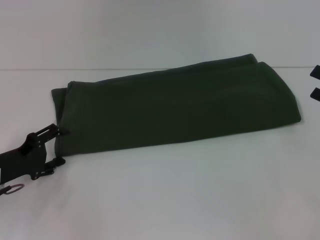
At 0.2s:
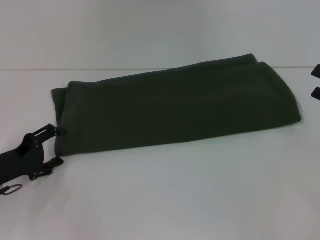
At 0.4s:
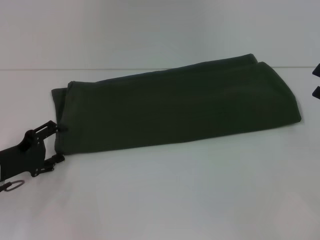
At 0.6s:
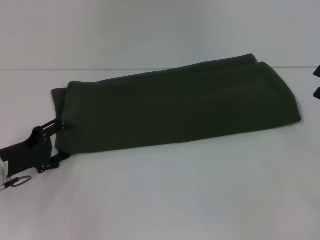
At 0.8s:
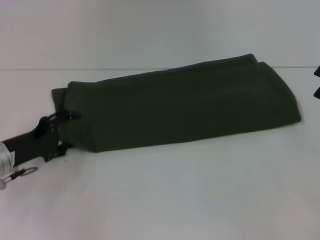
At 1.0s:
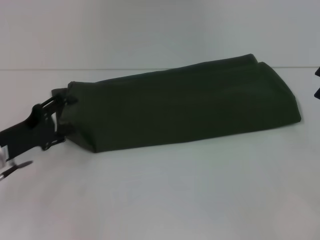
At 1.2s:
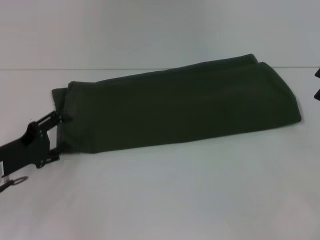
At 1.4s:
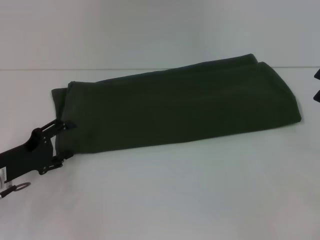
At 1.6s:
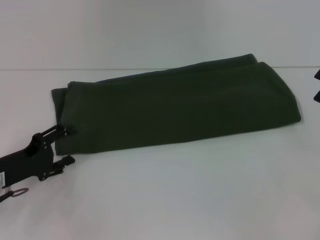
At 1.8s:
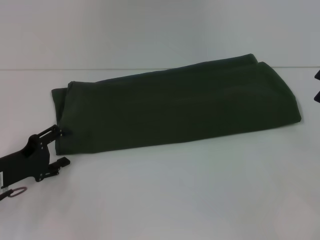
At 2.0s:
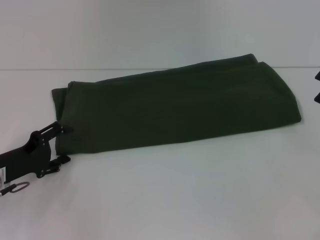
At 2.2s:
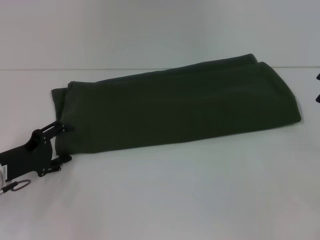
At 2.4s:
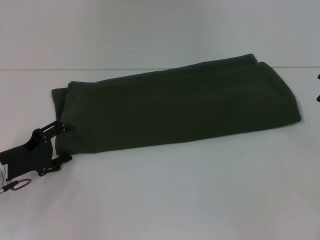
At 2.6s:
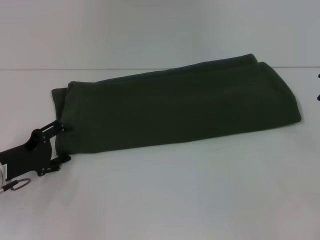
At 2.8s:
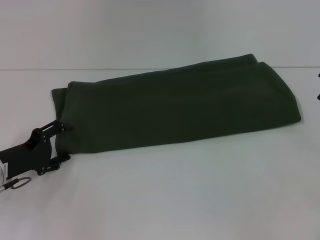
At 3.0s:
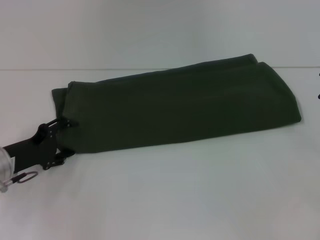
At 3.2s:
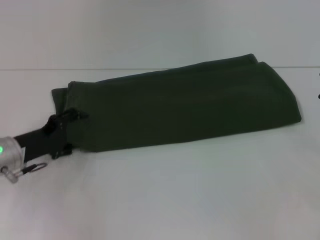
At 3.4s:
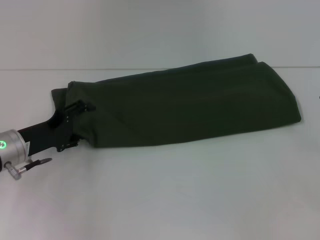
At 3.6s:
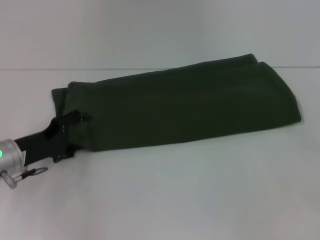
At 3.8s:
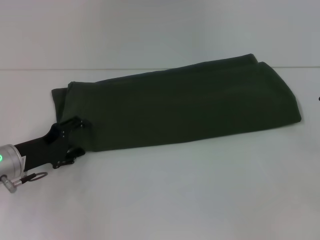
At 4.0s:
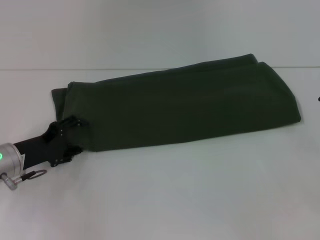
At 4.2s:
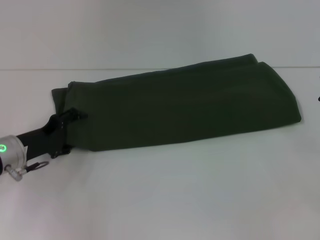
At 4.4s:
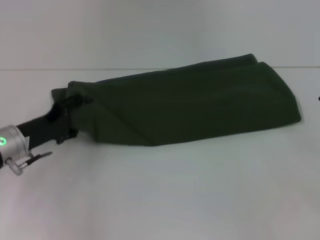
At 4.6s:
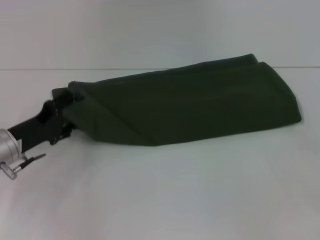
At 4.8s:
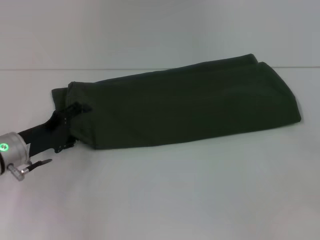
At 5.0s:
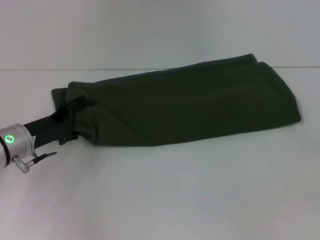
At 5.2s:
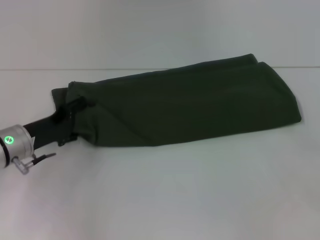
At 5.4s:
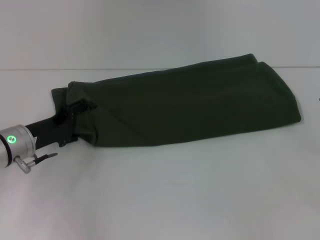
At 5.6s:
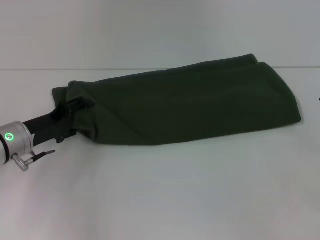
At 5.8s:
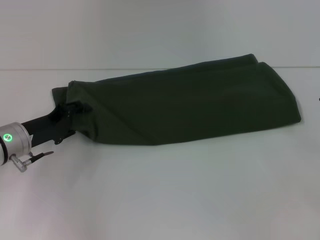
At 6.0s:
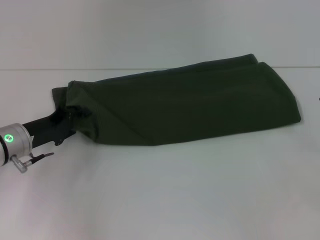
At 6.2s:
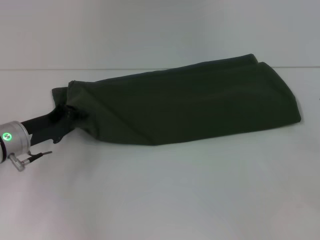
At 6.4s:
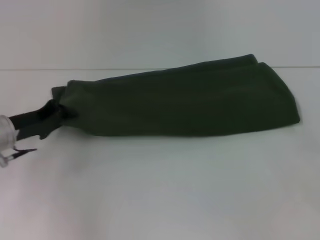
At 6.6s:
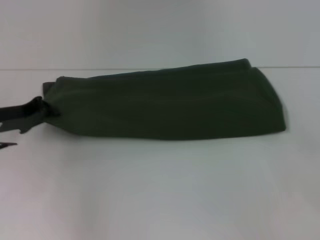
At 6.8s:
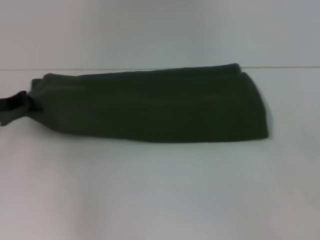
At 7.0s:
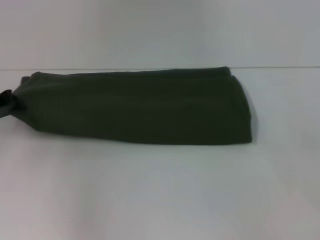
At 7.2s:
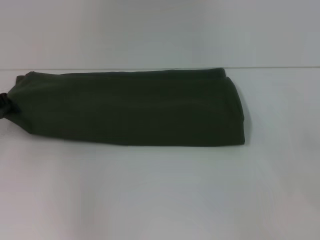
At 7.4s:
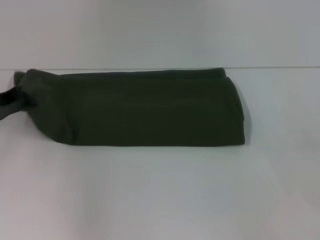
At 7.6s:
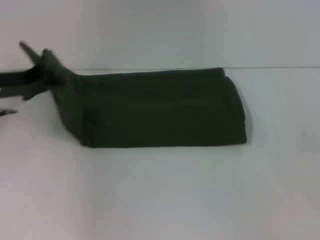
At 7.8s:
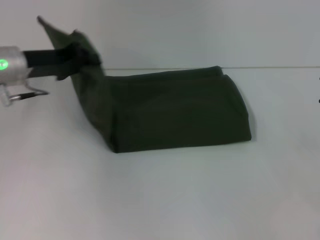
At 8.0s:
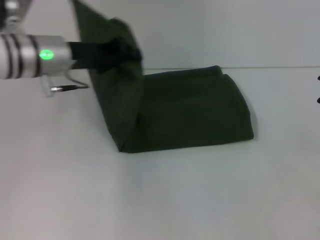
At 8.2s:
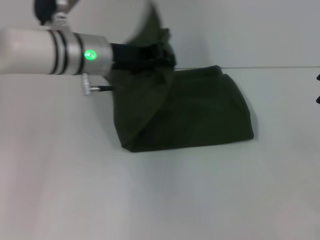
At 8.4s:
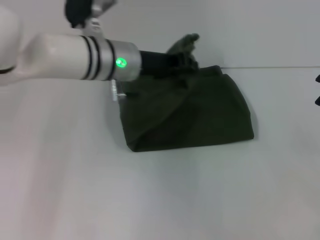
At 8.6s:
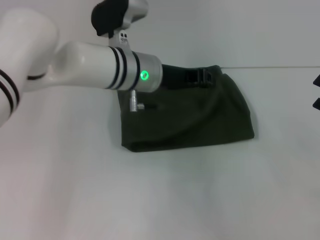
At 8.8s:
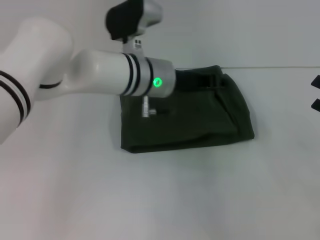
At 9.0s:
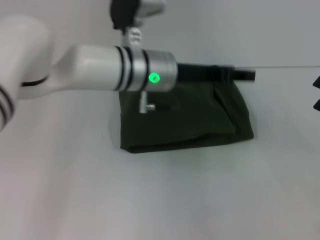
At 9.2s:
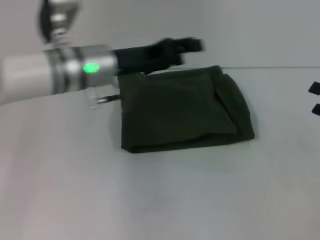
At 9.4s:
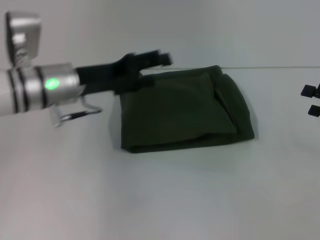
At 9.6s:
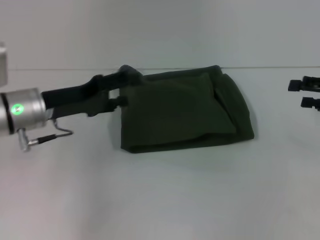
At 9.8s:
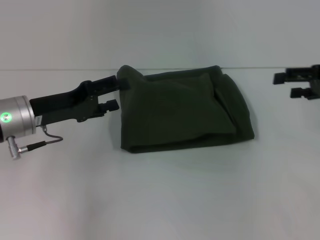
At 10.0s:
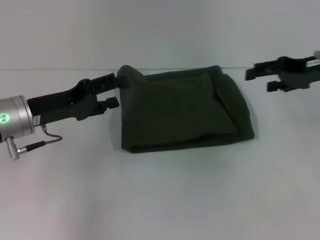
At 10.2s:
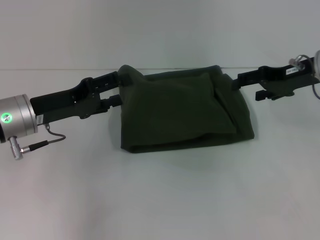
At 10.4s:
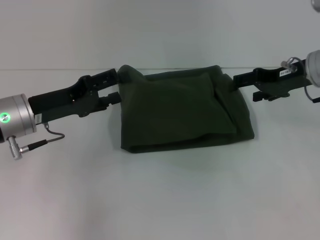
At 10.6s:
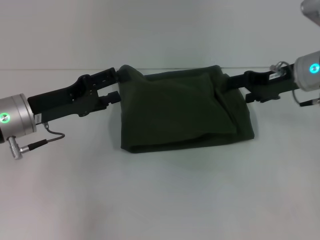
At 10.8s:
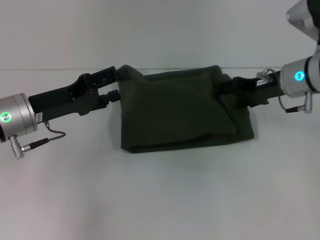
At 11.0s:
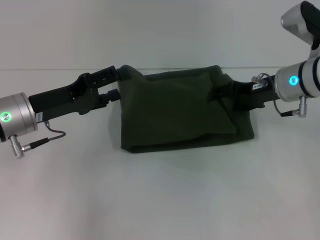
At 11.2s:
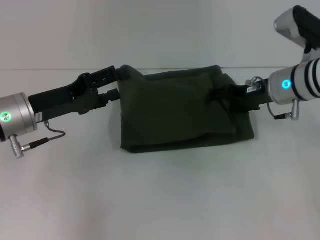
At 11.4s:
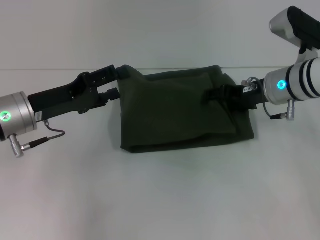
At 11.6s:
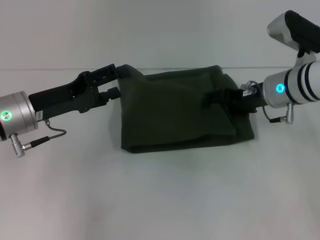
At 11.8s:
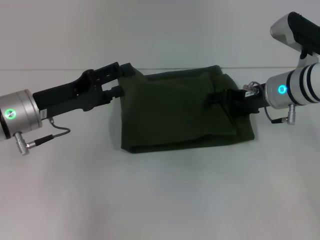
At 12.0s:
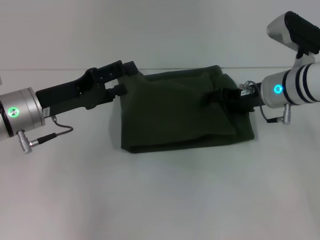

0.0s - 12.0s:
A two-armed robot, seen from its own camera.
Step, 0.0s - 9.0s: Fold the clothes with your left hand.
0.0s - 4.4s: The grippers move only a little.
4.4s - 6.0s: The grippers stay close to where they were, moving slightly.
6.0s - 7.6s: The left gripper shifts some 10 cm upward, and closes up.
7.6s - 9.0s: The left gripper goes roughly 25 cm to the right.
9.0s - 10.4s: The right gripper shifts roughly 20 cm forward, to the left and upward, while the left gripper is displaced to the left by approximately 20 cm, and opens.
10.4s - 12.0s: The right gripper travels to the left by some 5 cm.

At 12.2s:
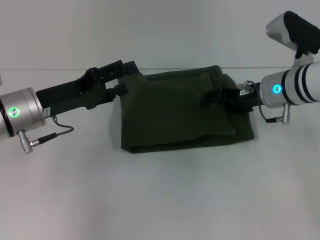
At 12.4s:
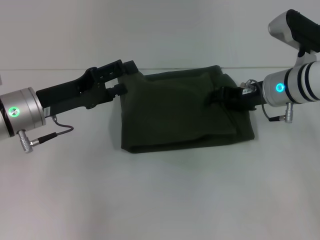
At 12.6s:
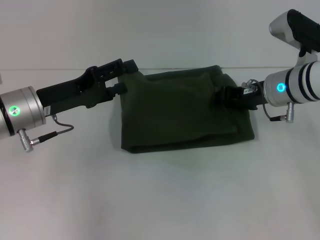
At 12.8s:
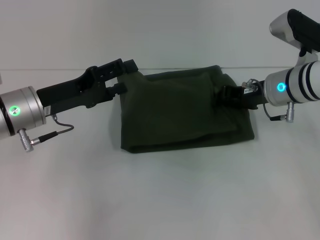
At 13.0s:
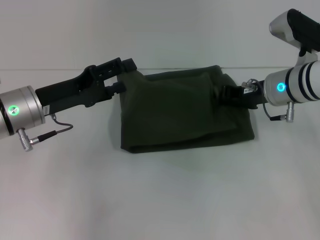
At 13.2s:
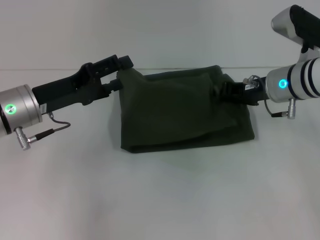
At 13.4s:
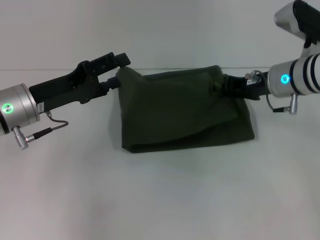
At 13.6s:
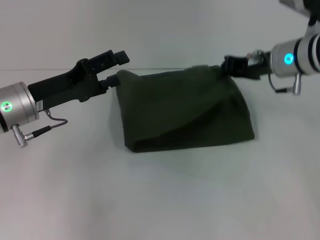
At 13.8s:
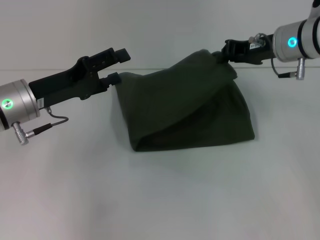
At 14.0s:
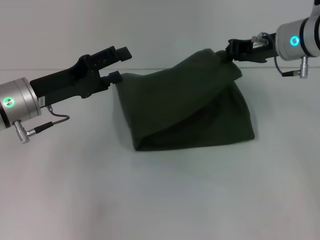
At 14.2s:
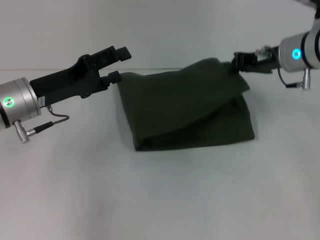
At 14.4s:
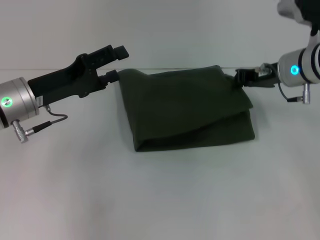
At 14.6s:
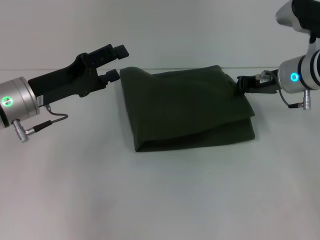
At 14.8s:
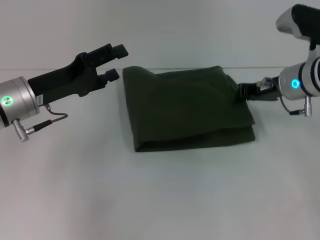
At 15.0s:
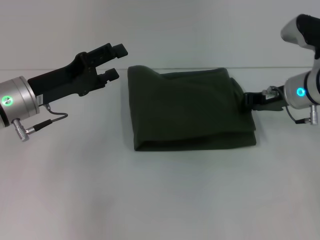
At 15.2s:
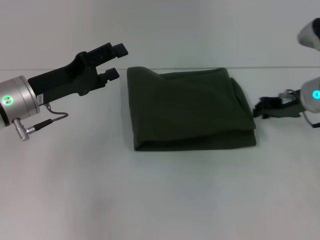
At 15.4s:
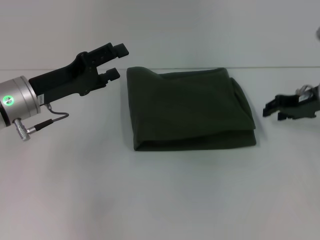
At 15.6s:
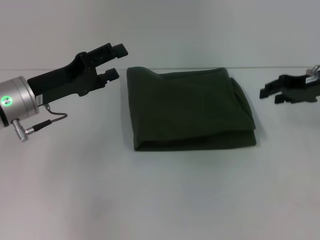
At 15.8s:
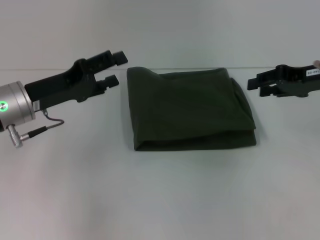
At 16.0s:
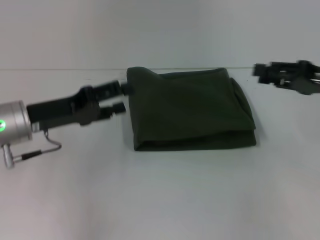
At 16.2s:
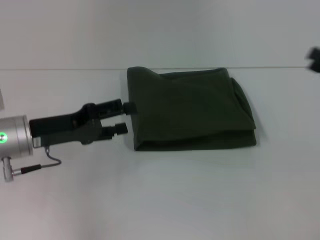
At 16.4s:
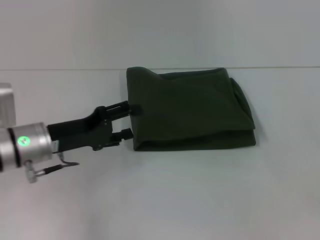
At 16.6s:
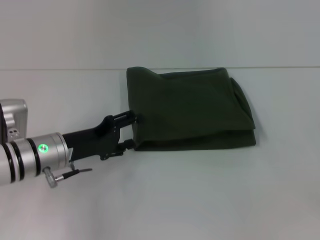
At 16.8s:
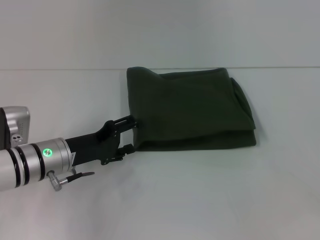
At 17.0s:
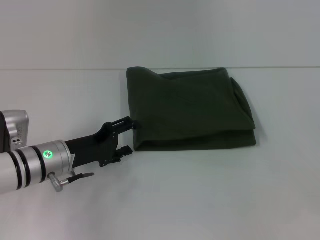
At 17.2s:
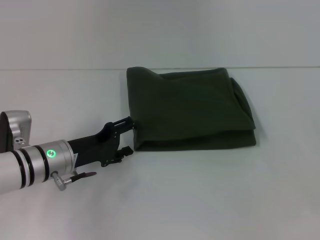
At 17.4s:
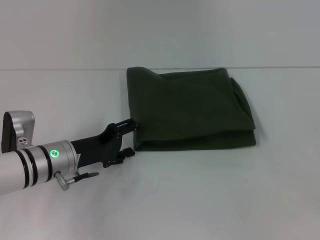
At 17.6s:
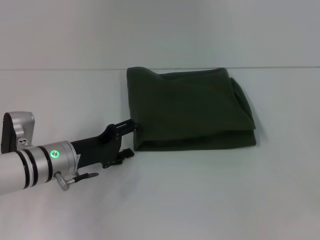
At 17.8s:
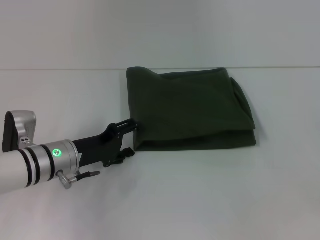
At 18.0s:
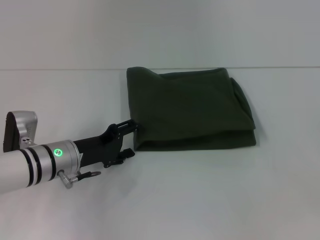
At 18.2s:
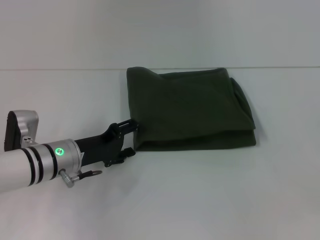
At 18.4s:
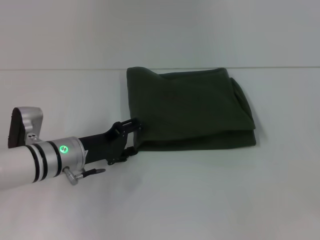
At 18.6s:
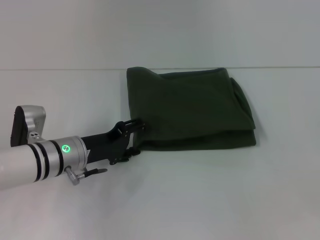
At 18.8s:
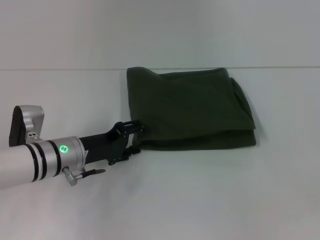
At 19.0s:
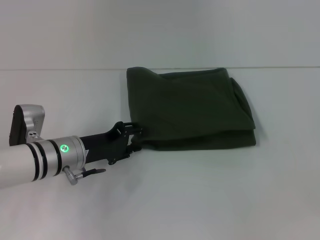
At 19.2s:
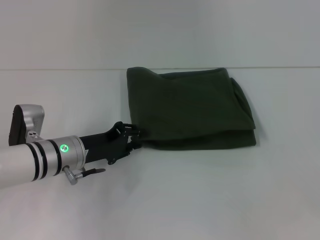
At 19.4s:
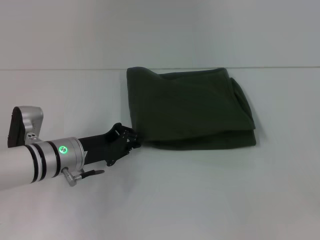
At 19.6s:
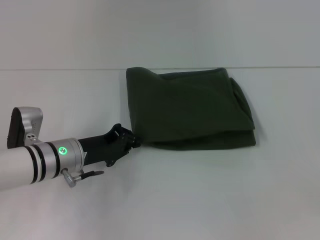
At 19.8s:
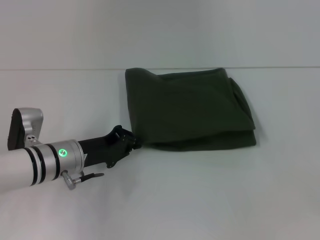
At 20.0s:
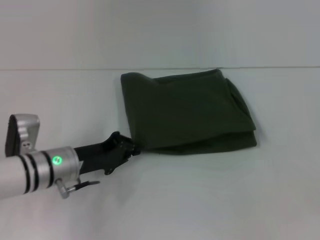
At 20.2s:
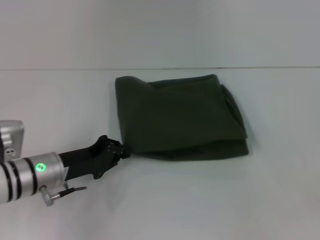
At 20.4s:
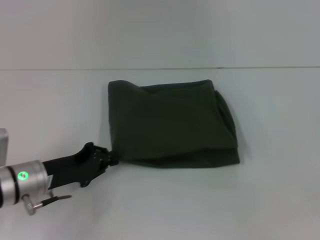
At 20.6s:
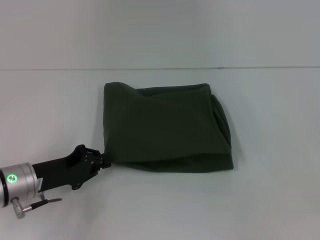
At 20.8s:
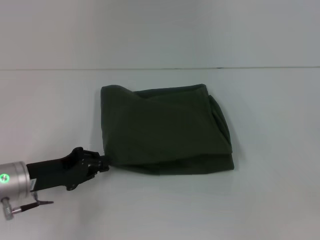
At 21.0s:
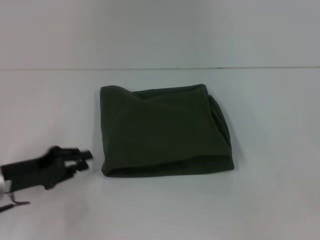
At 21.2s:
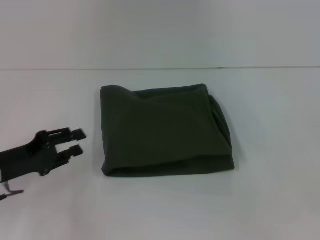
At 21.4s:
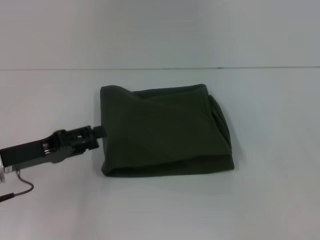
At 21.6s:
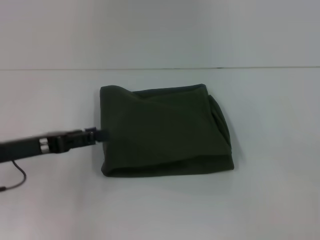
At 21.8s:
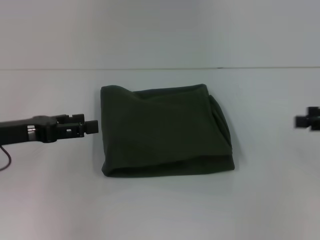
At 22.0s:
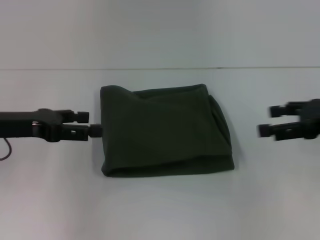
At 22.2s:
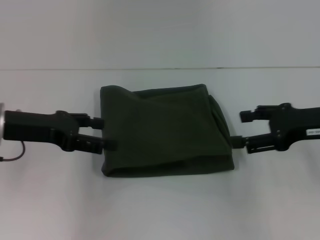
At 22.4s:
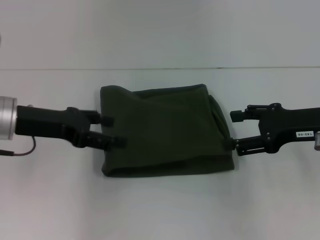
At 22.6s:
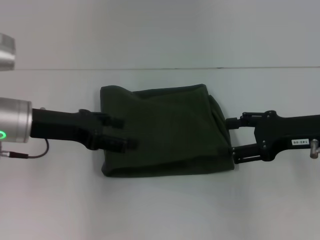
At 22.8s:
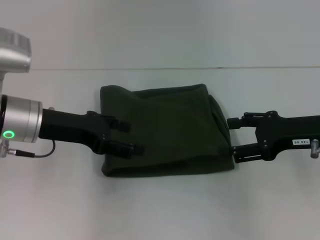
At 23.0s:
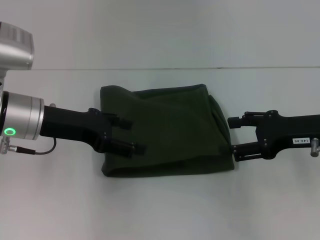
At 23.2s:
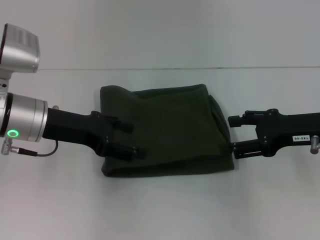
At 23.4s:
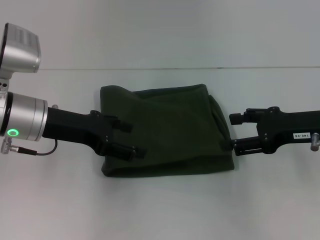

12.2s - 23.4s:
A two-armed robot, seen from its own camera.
12.2s - 13.8s: The right gripper heads upward, covering approximately 5 cm, and closes up.
13.8s - 15.4s: The right gripper is displaced to the right and downward by roughly 10 cm.
15.4s - 17.0s: The right gripper shifts roughly 20 cm backward and to the right, and opens its fingers. The left gripper goes roughly 10 cm downward.
17.0s - 18.6s: The grippers make only small movements.
18.6s - 20.2s: The left gripper closes.
20.2s - 21.8s: The right gripper moves approximately 5 cm; the left gripper is displaced upward and to the left by approximately 15 cm, and opens its fingers.
21.8s - 23.4s: The left gripper moves to the right, about 10 cm. Meanwhile the right gripper goes some 10 cm to the left.
